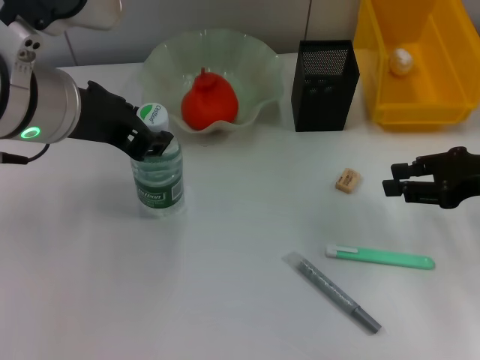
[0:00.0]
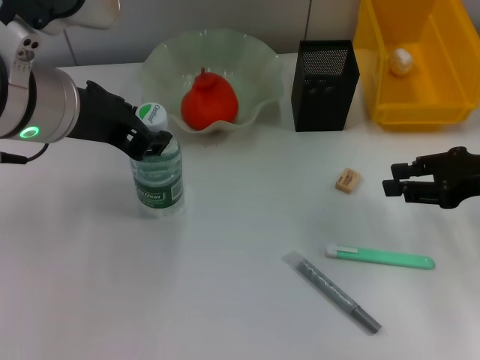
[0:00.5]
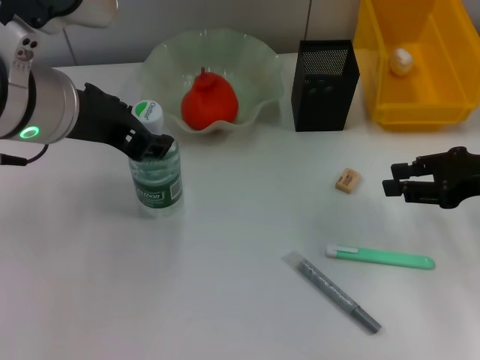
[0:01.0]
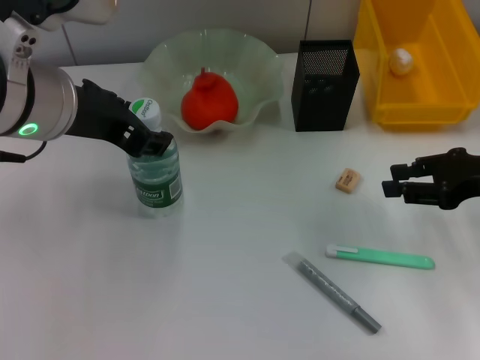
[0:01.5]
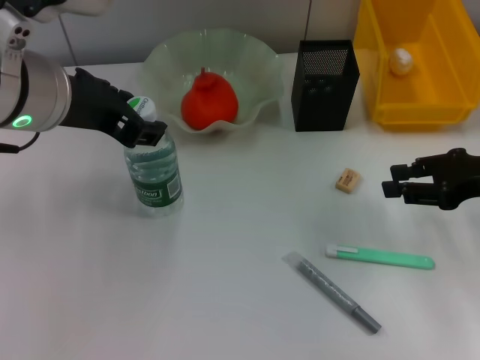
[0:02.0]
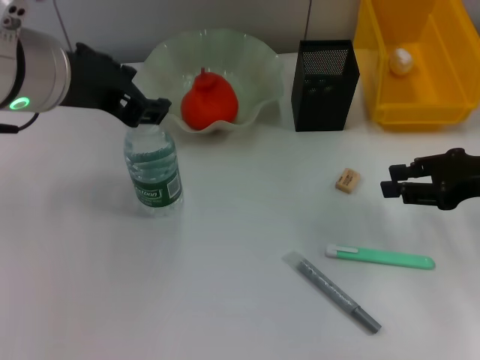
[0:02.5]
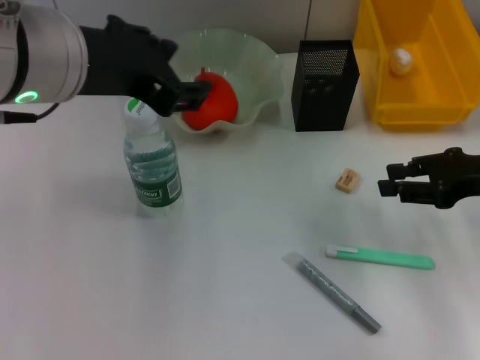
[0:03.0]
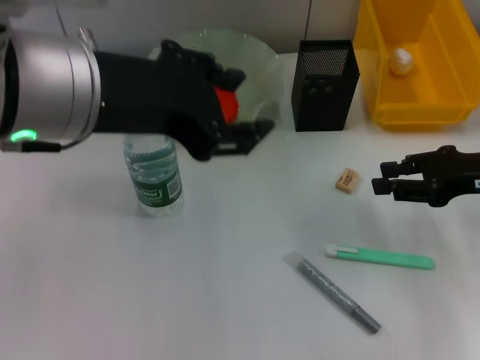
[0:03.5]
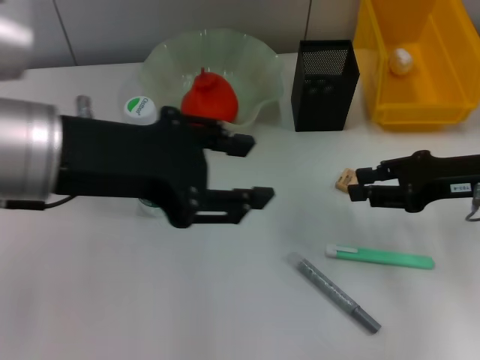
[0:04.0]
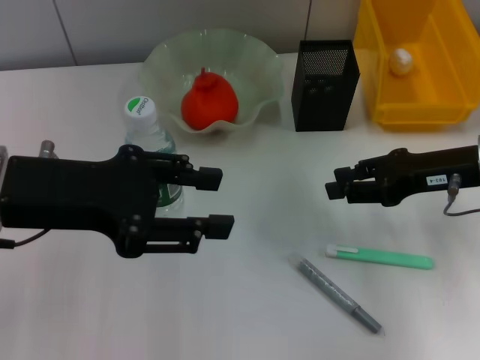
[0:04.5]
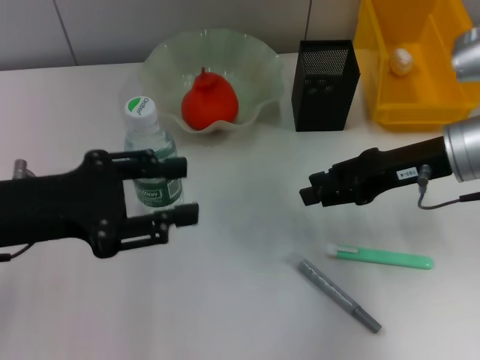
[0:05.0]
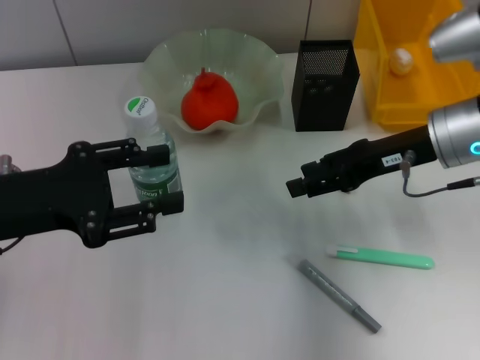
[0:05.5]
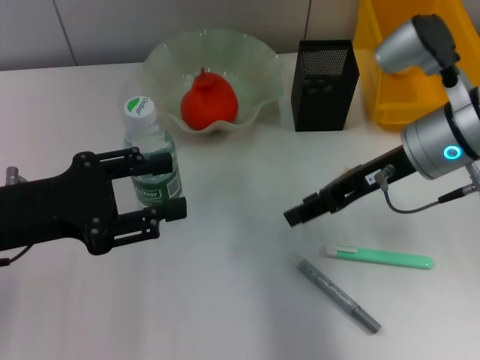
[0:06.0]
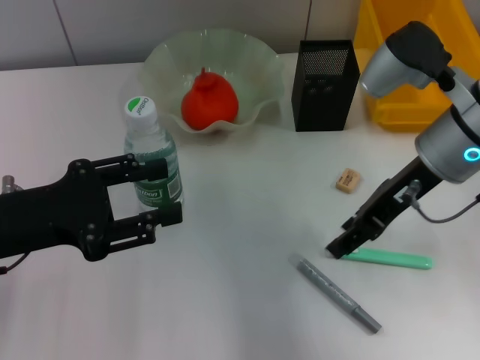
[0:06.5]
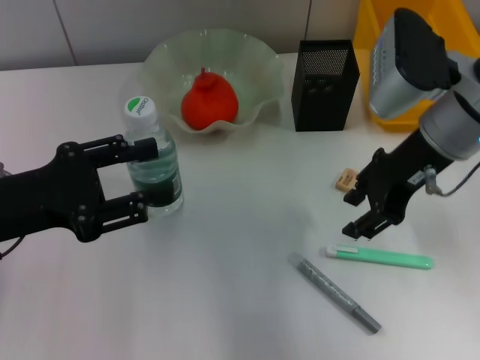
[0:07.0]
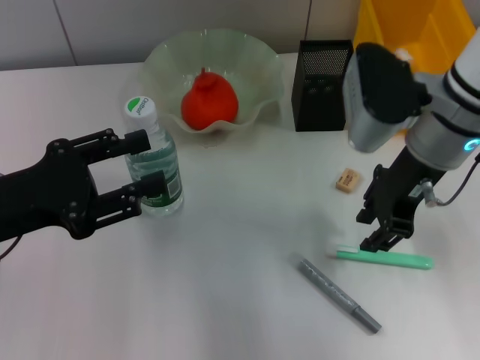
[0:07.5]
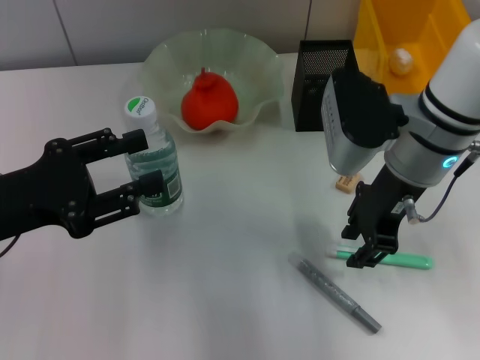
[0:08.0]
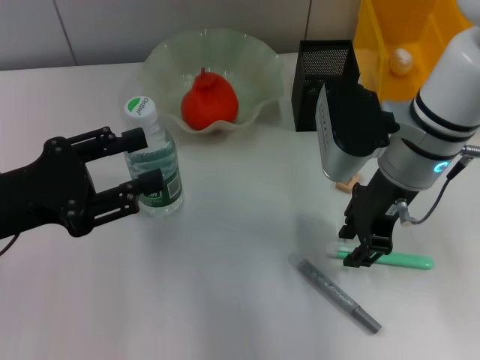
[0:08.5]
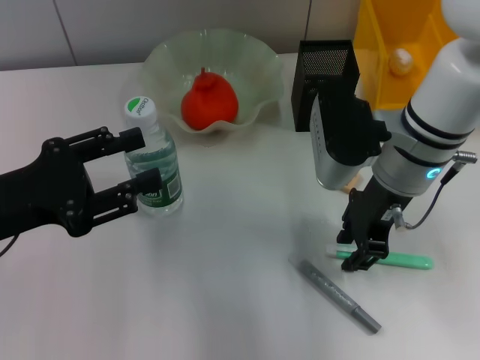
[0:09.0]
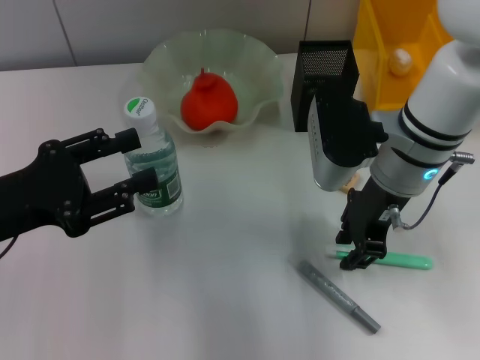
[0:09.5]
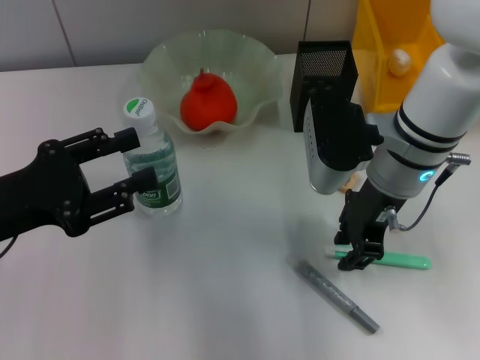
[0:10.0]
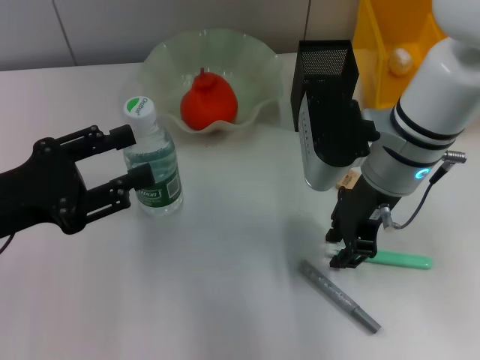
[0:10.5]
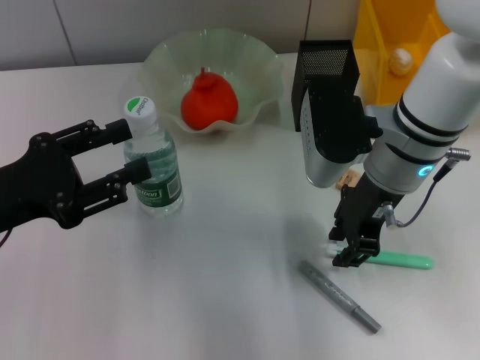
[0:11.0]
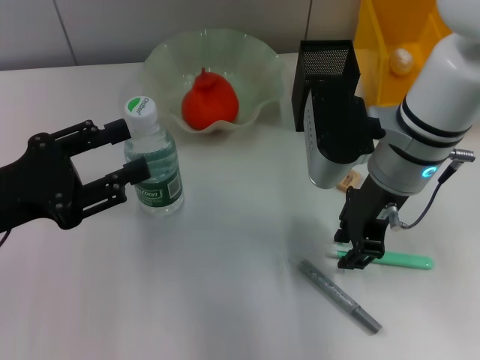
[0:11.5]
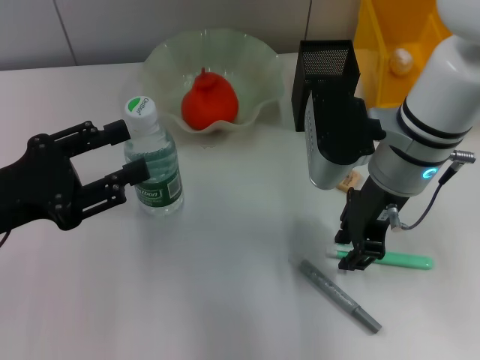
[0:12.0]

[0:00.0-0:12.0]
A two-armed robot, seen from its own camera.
Step, 0:00.0 to 0:02.0: Place the water bottle on the table with the left hand.
0:00.0 to 0:02.0: The left gripper opens up.
0:02.0 to 0:04.0: The left gripper shifts about 5 cm backward.
0:04.0 to 0:06.0: The left gripper moves downward and to the left, about 15 cm, while the right gripper is displaced to the left by about 10 cm.
0:08.0 to 0:10.0: The grippers stay close to where they were, moving slightly.
0:10.0 to 0:12.0: The two grippers keep their place.

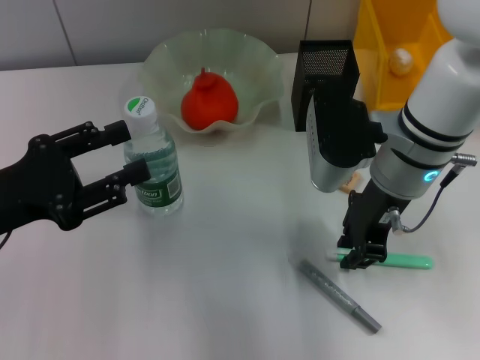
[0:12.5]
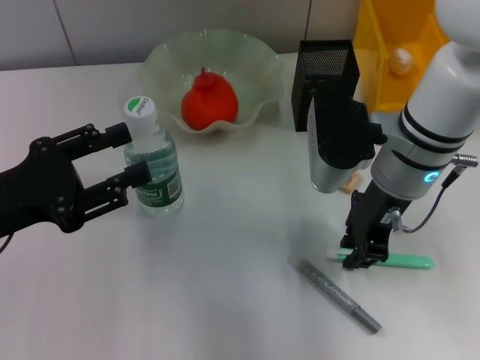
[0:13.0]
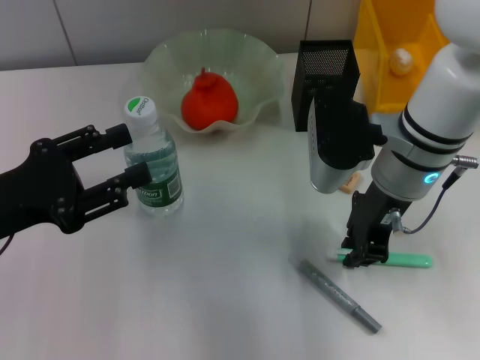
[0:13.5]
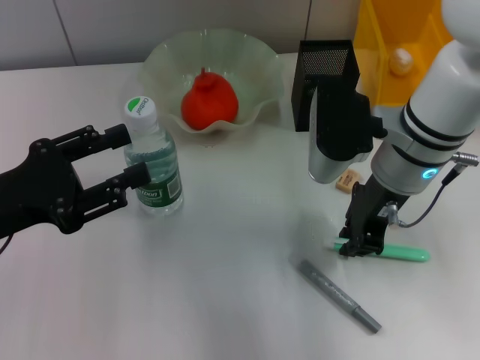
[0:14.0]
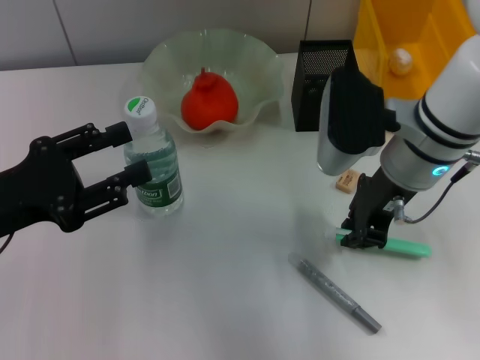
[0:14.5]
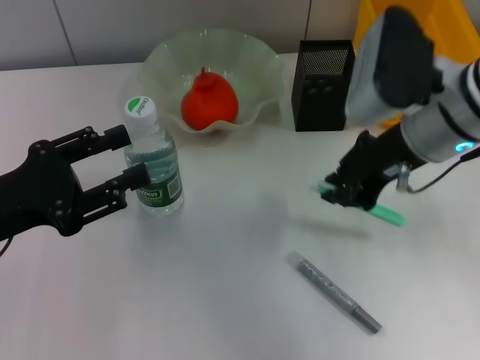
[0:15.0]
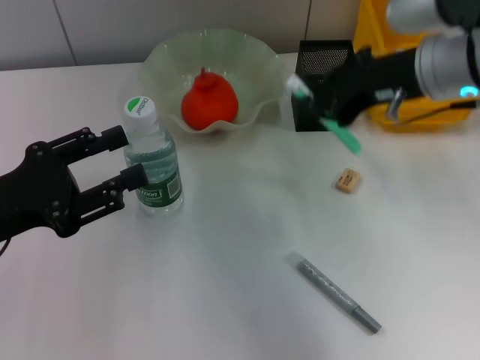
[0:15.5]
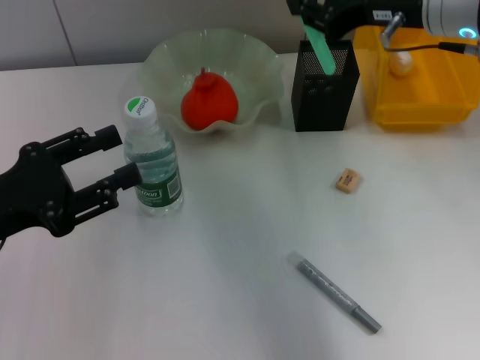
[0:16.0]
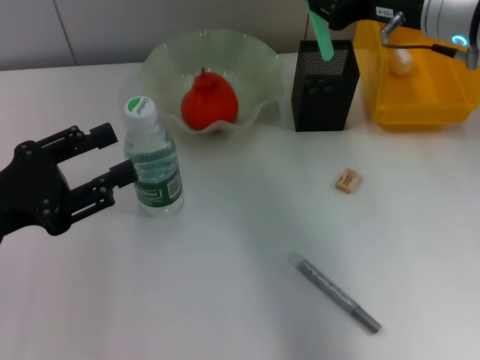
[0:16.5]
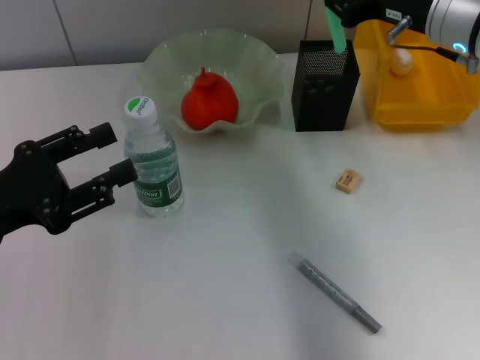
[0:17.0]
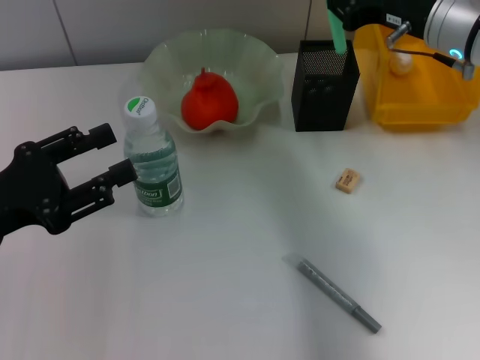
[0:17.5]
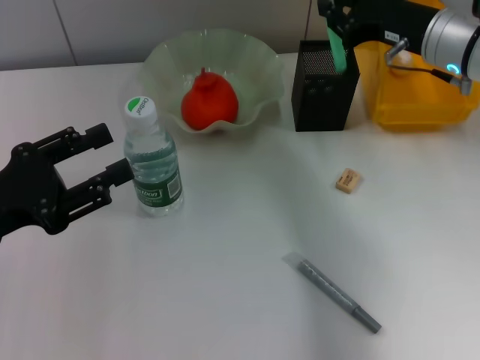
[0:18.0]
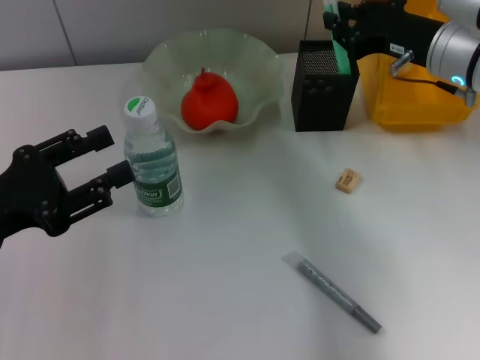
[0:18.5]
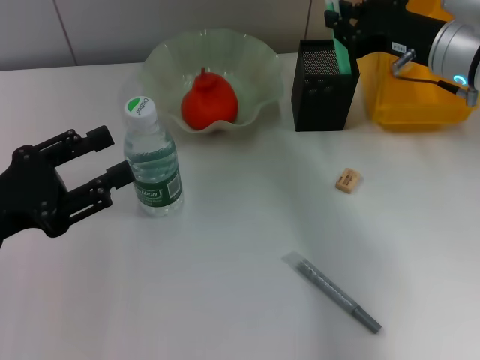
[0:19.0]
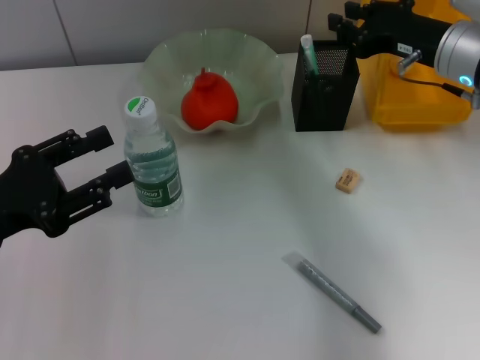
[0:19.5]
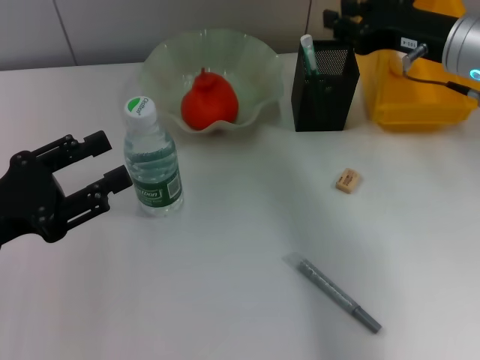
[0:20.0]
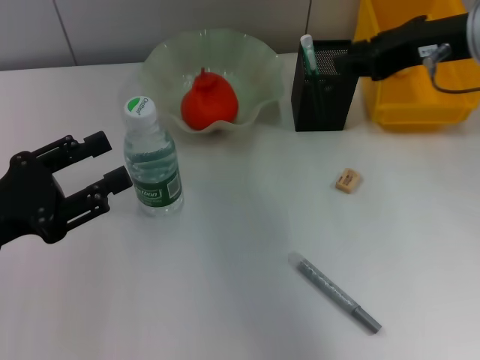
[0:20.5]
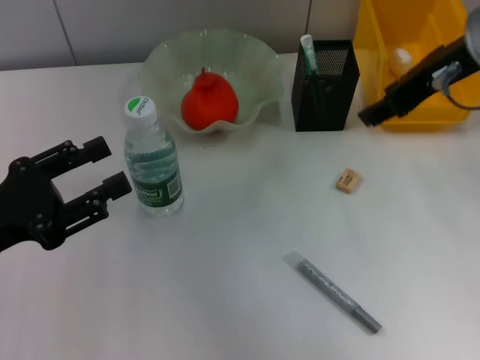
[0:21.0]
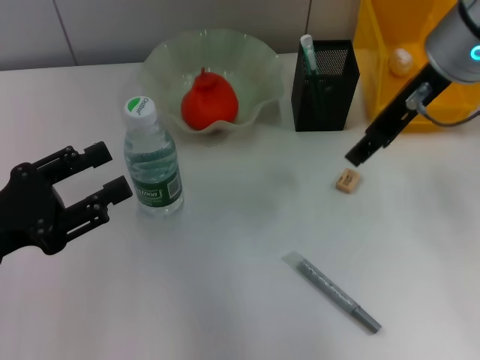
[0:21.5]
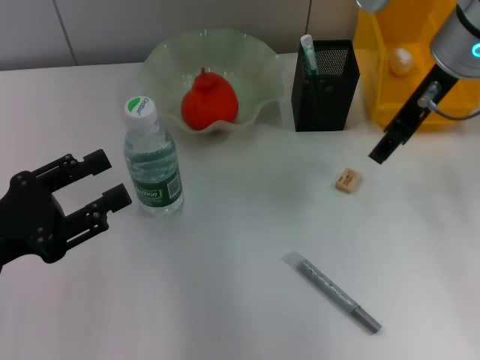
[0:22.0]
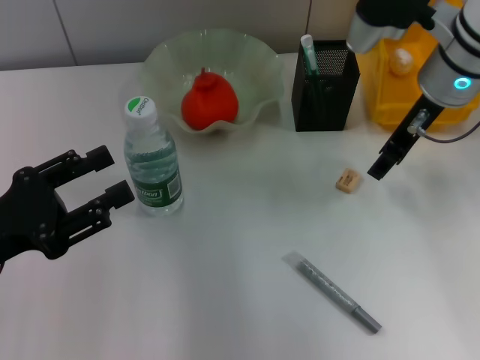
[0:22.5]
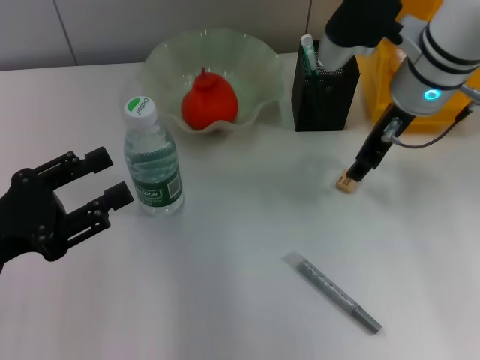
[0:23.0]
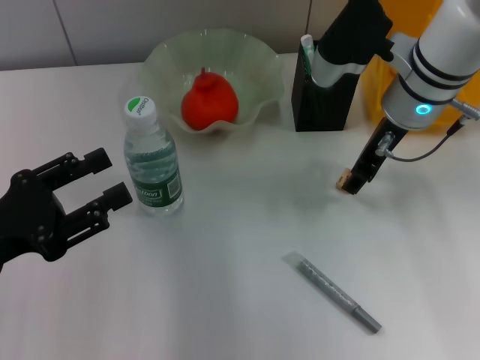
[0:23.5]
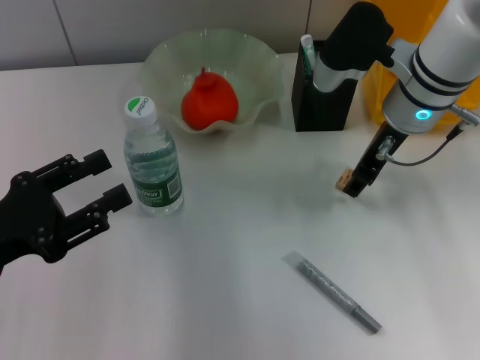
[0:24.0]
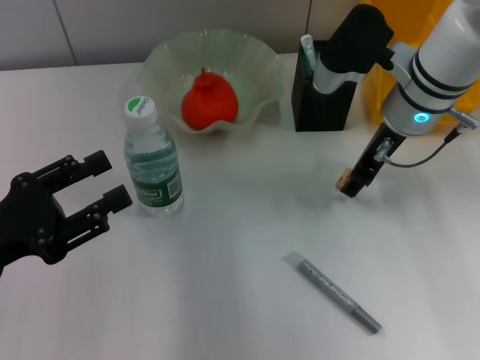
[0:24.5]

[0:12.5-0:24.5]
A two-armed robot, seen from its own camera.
Step, 0:14.0 to 0:19.5: Place the blue utility knife into the pen holder with the right hand.
0:12.5 to 0:14.5: The grippers make only small movements.
0:14.5 to 0:16.5: The right gripper heads upward and to the right, covering roughly 10 cm.
0:16.5 to 0:18.5: The right gripper heads downward, covering roughly 5 cm.
0:18.5 to 0:20.5: The right gripper goes approximately 10 cm upward.
0:20.5 to 0:22.5: The right gripper shifts approximately 10 cm downward and forward.
0:22.5 to 0:24.5: The grippers move only a little.

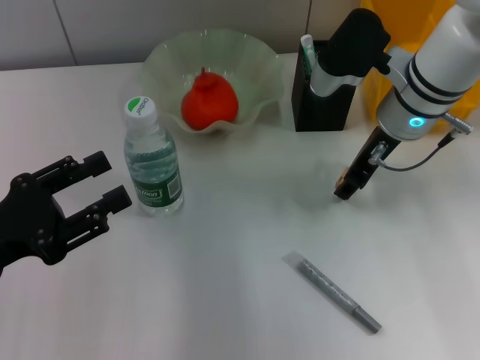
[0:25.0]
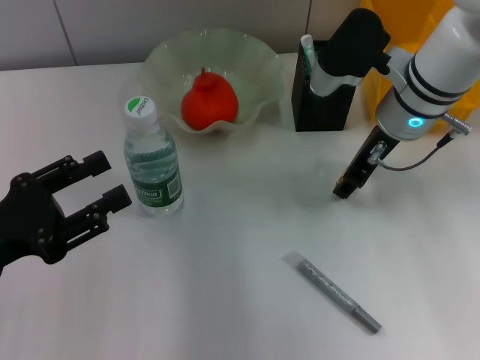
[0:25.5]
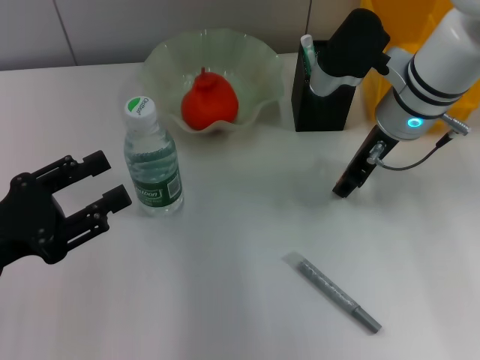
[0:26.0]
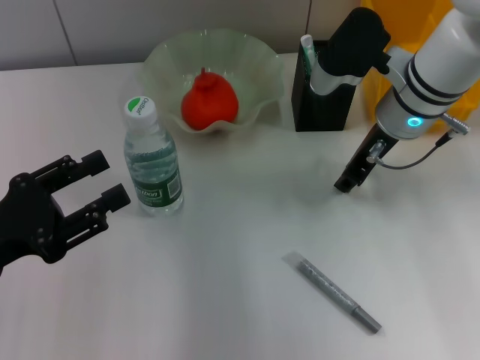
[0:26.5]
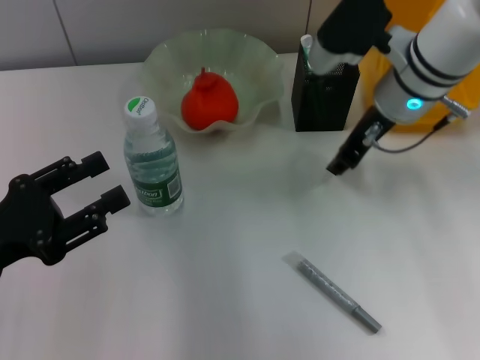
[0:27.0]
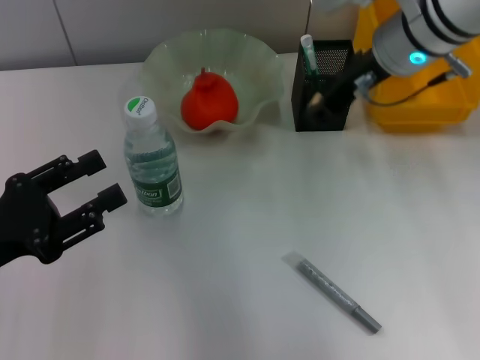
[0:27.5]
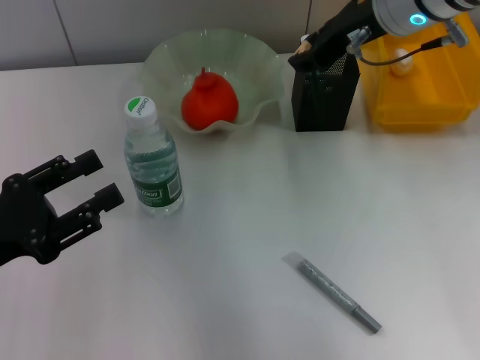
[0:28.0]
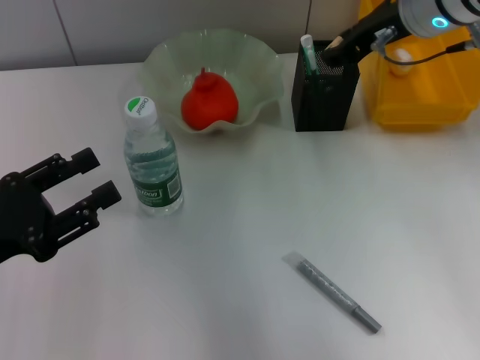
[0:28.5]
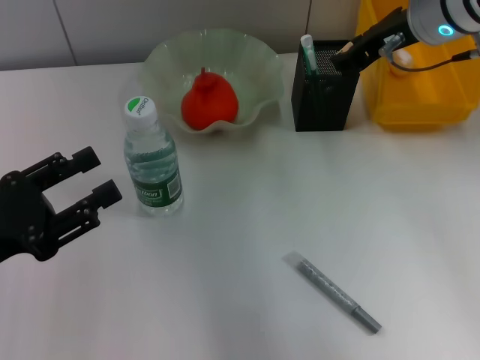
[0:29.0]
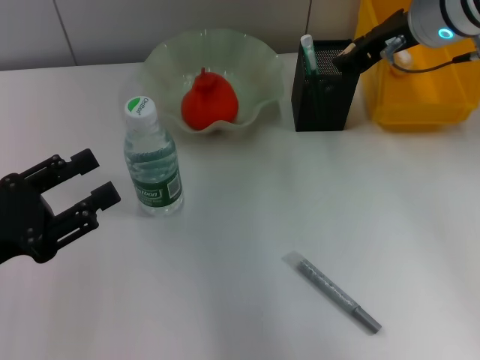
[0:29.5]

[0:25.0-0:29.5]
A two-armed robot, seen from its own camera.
0:25.0 to 0:27.0: The grippers make only small movements.
0:27.0 to 0:29.5: The right gripper ends up about 5 cm from where it was.
